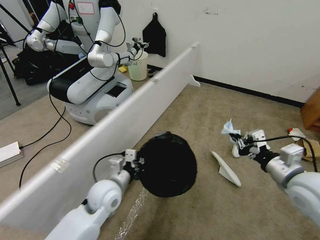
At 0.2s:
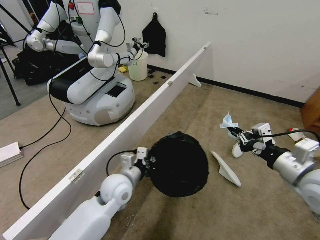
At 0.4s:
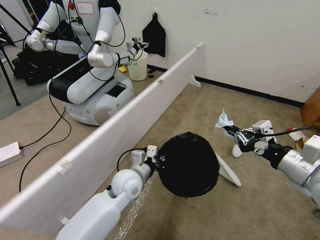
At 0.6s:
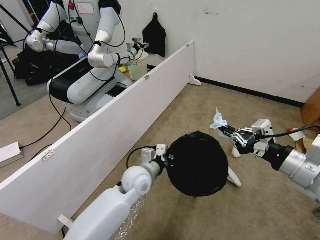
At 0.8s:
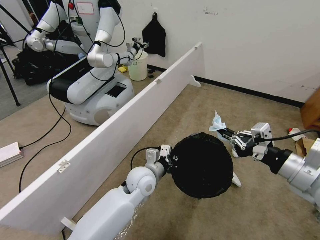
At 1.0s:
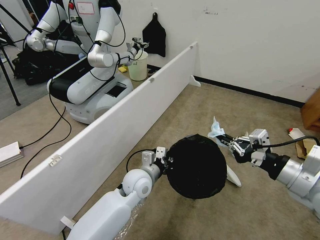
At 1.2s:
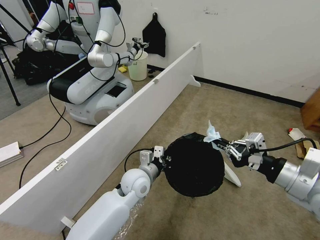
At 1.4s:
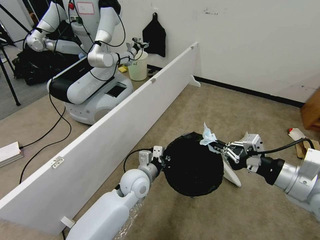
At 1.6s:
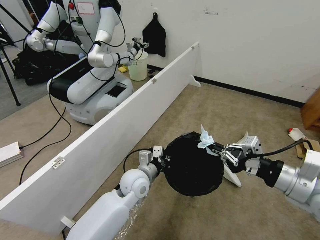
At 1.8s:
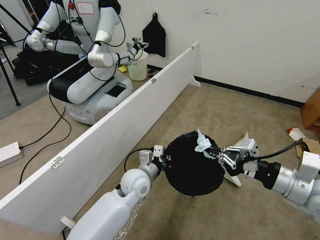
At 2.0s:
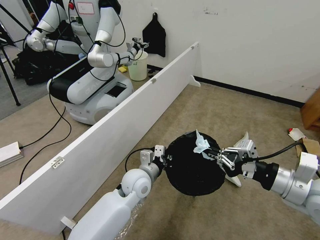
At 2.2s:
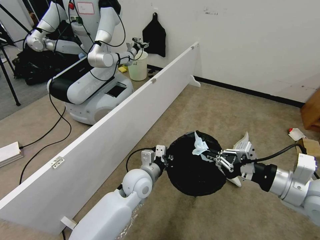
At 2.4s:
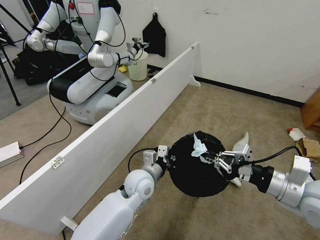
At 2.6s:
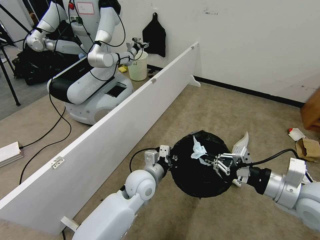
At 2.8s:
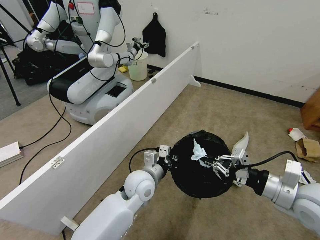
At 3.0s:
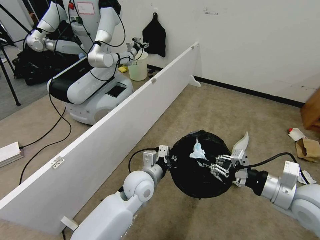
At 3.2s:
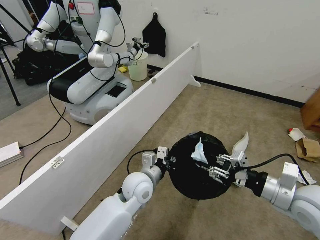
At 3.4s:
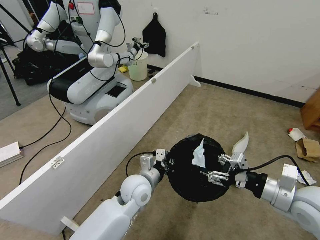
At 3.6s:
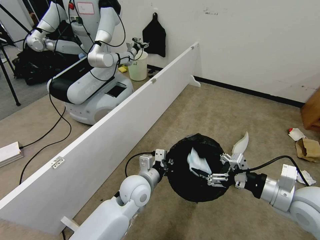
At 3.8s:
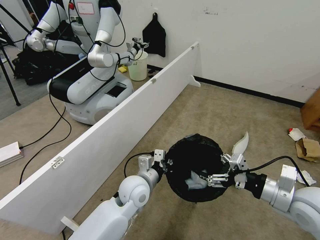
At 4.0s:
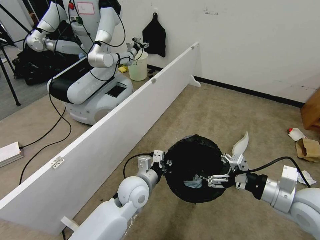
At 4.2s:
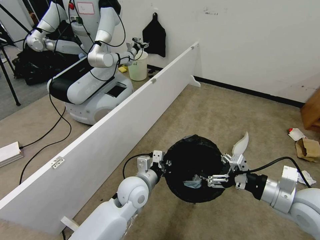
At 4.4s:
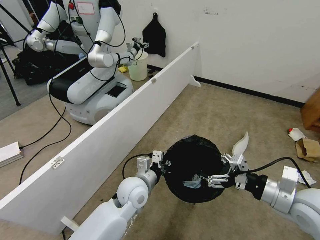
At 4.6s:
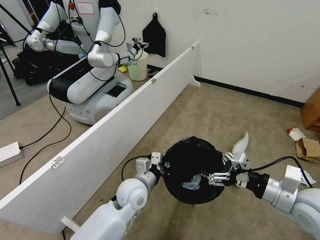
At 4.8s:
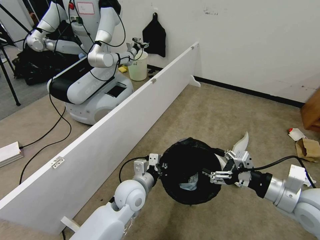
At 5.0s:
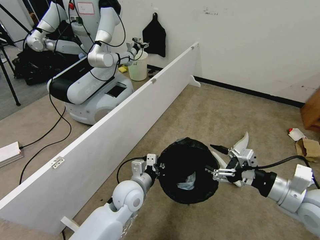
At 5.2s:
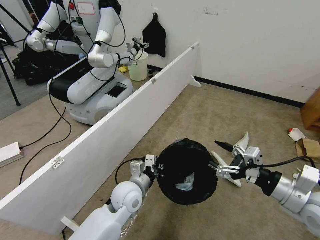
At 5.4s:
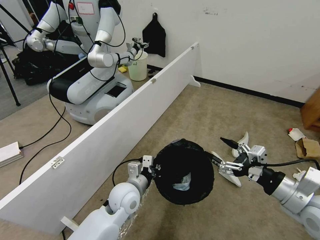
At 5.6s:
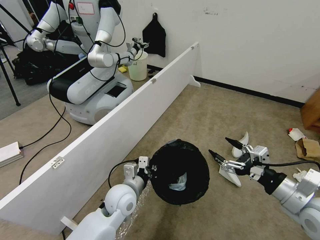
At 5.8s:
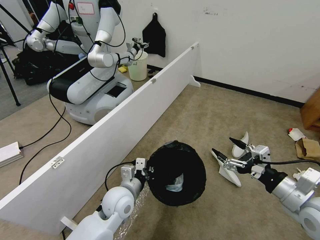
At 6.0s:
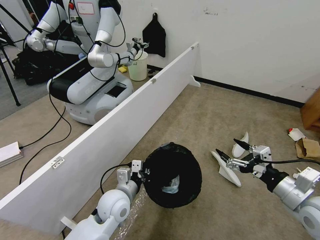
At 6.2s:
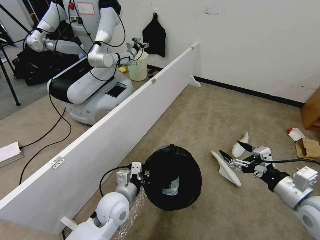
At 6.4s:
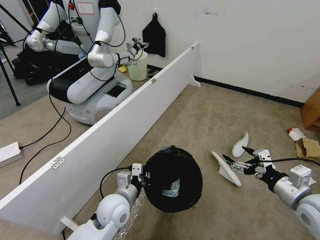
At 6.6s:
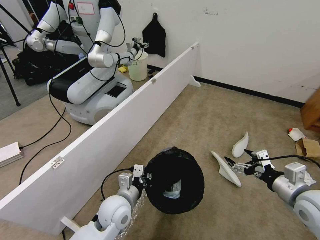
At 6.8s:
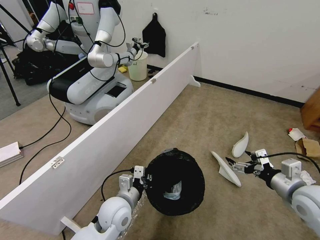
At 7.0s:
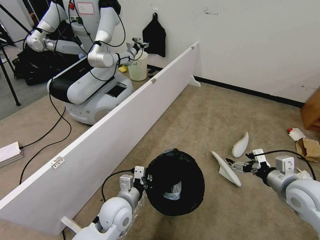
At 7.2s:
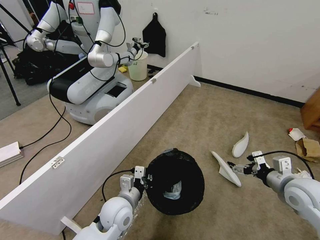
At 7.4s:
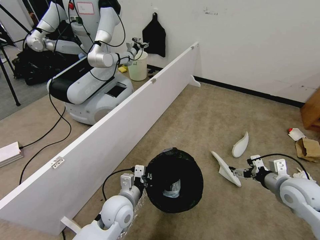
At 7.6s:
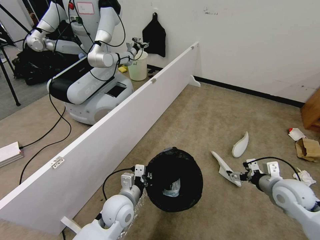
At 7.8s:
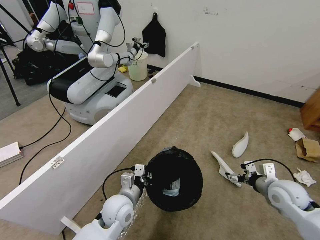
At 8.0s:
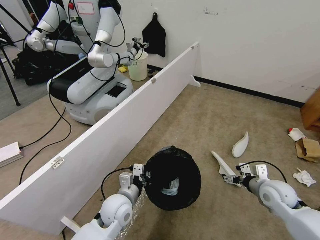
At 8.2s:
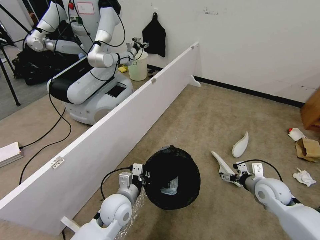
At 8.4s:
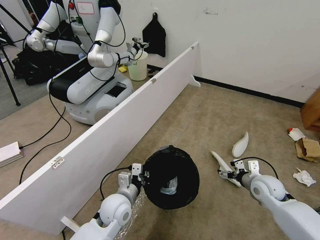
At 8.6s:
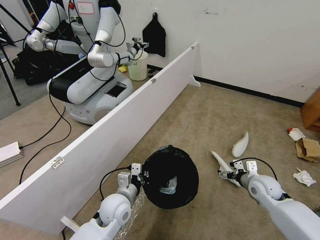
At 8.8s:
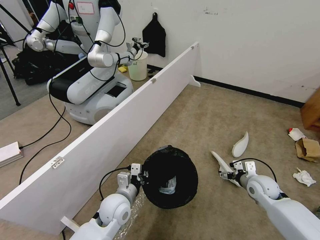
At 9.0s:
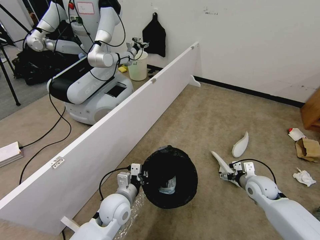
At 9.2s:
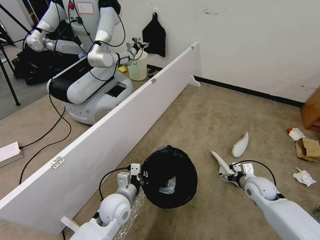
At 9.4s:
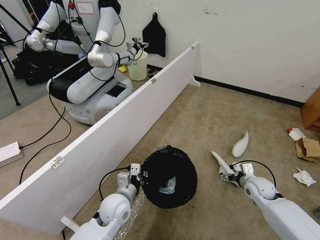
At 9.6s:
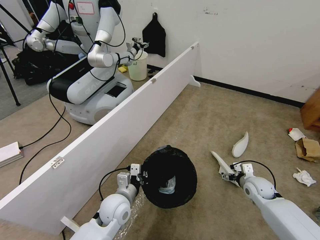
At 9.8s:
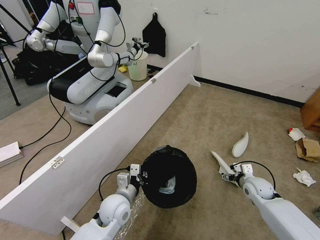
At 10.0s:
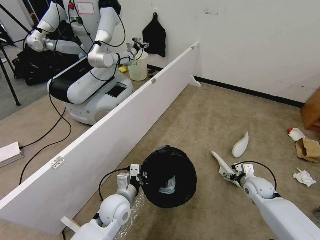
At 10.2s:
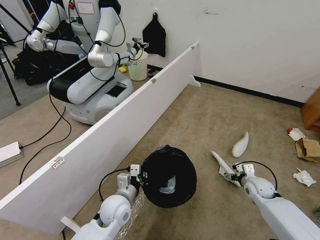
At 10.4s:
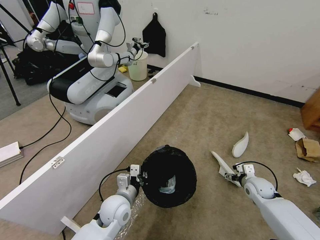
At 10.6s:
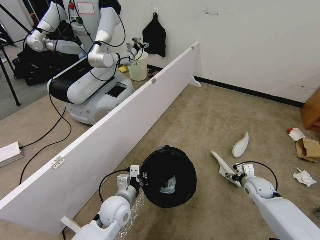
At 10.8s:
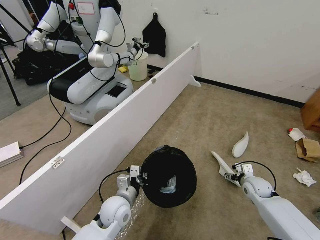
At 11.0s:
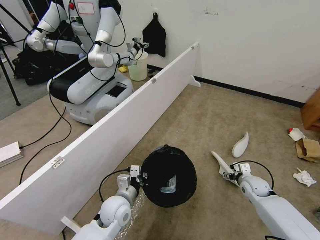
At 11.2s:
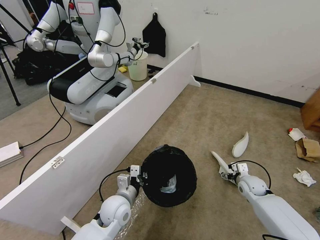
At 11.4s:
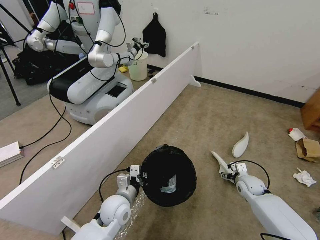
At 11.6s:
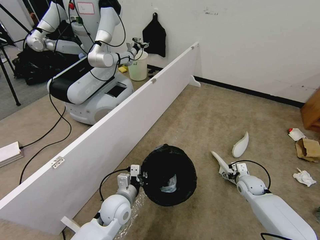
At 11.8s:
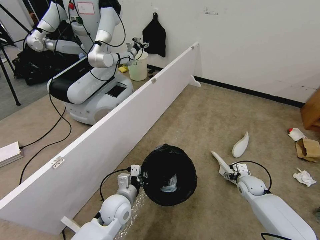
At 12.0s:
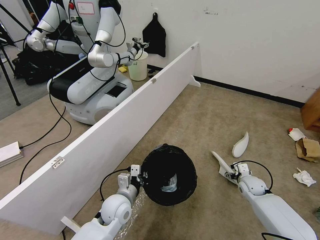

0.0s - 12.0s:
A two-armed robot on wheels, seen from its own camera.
Task of the whole recording: Pick up the trash bin, then pick up the garbage from the floor and place it into the trash bin.
0.0s - 1.6s: The right gripper changes place by approximately 5 cm; the left gripper heads to the right, covering roughly 10 cm.
1.6s - 3.0s: The grippers make only small movements.
3.0s - 4.4s: The right gripper opens its fingers.
4.4s - 6.0s: The left gripper is displaced to the left by some 5 cm.
6.0s - 7.6s: The right gripper is displaced forward and downward by roughly 10 cm.
7.6s - 9.0s: The right gripper moves downward and forward, approximately 10 cm.
9.0s - 10.4s: The right gripper moves some 5 cm.
10.4s - 12.0s: The grippers make only small movements.

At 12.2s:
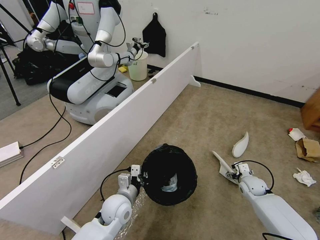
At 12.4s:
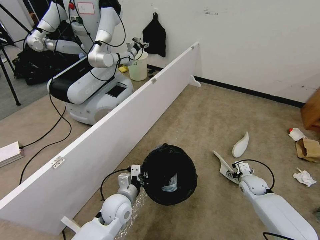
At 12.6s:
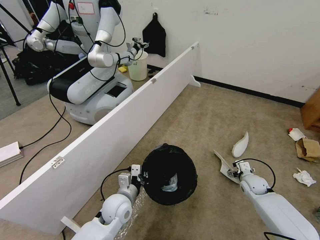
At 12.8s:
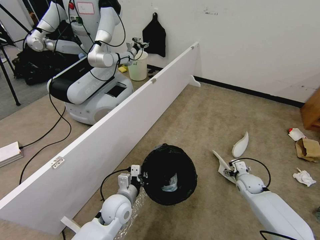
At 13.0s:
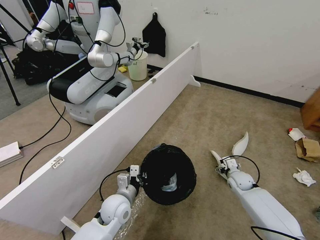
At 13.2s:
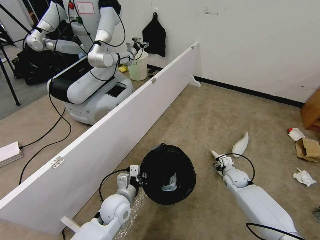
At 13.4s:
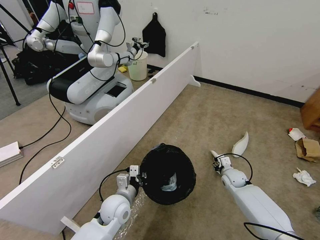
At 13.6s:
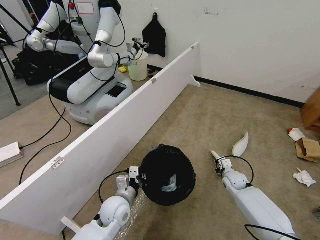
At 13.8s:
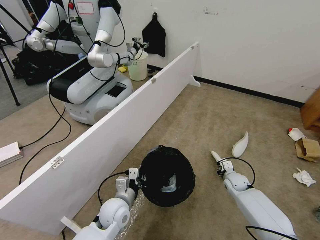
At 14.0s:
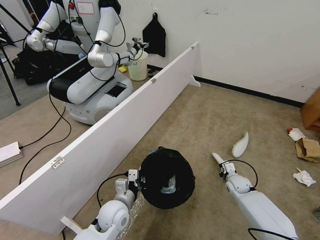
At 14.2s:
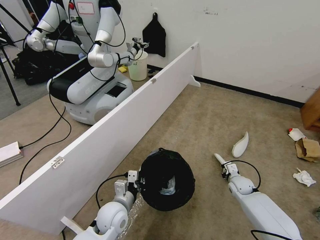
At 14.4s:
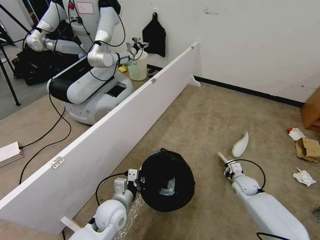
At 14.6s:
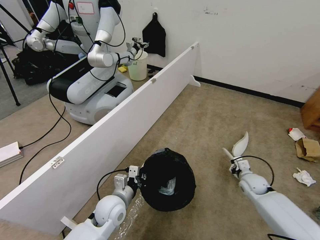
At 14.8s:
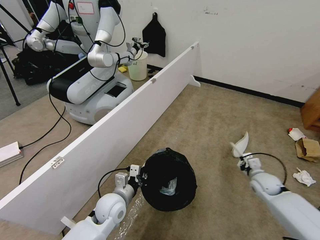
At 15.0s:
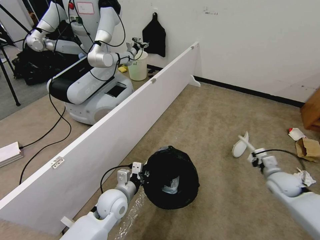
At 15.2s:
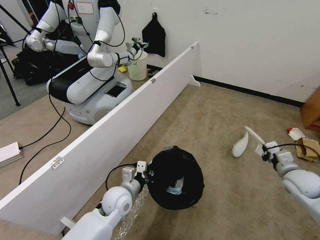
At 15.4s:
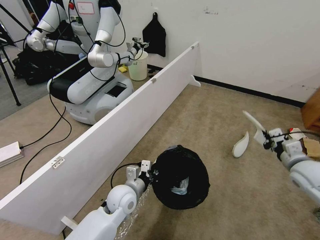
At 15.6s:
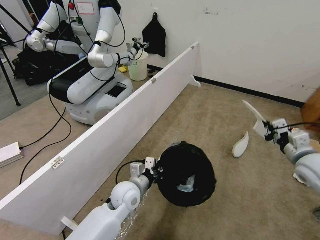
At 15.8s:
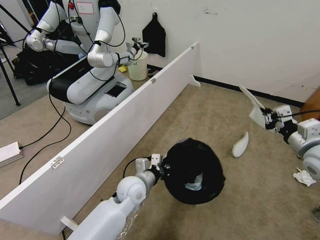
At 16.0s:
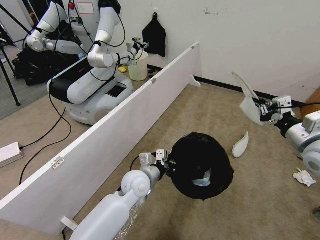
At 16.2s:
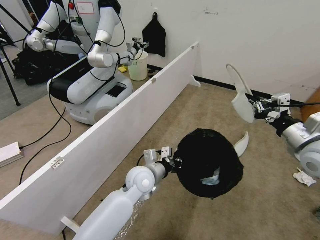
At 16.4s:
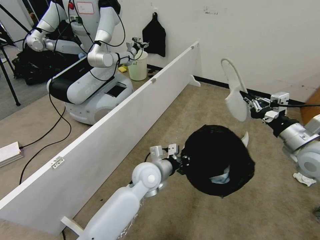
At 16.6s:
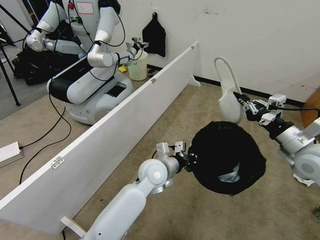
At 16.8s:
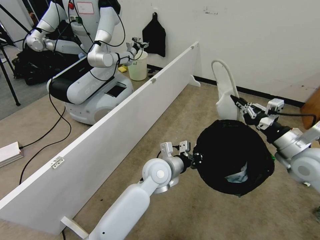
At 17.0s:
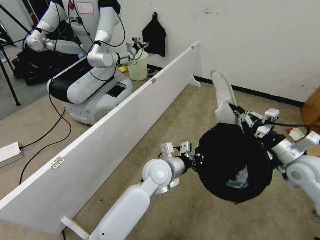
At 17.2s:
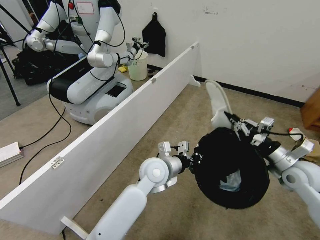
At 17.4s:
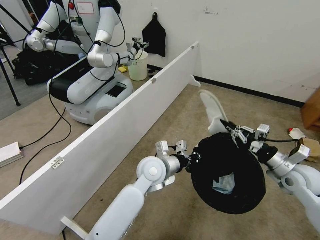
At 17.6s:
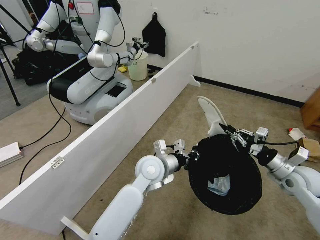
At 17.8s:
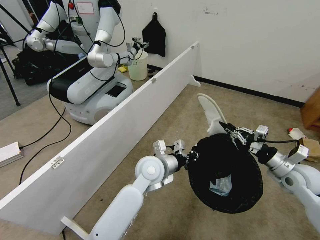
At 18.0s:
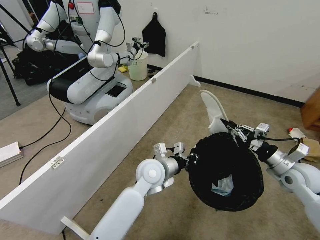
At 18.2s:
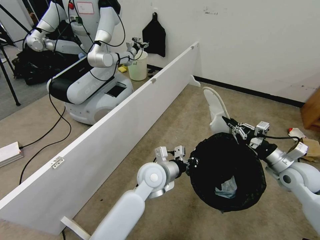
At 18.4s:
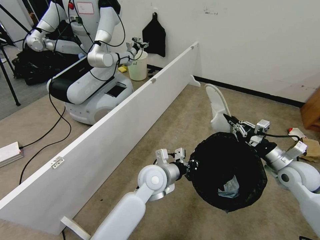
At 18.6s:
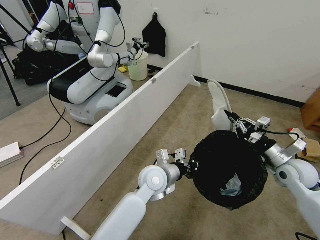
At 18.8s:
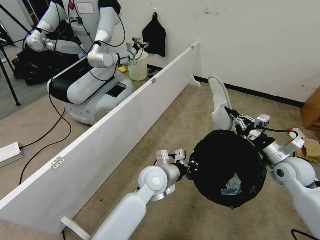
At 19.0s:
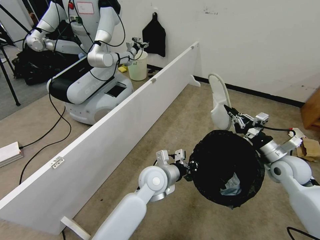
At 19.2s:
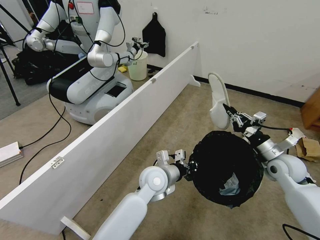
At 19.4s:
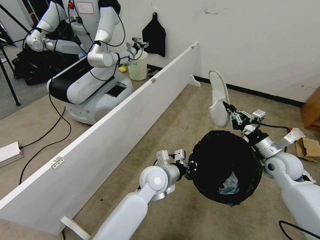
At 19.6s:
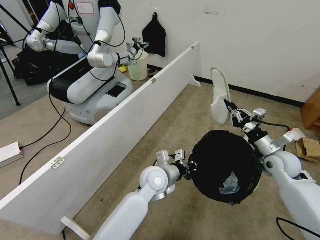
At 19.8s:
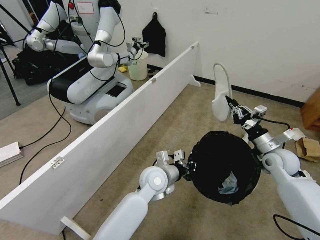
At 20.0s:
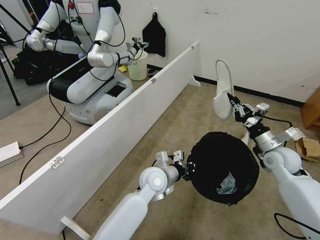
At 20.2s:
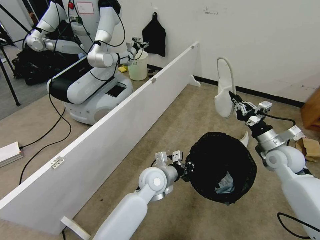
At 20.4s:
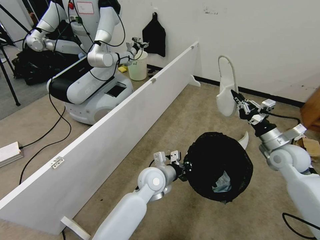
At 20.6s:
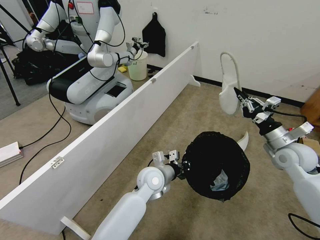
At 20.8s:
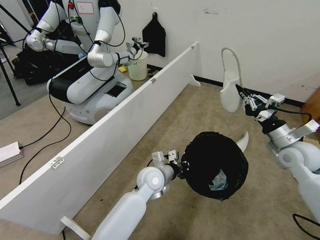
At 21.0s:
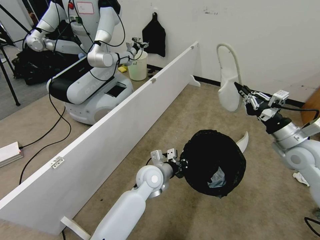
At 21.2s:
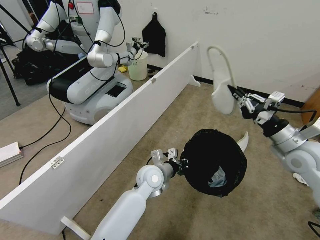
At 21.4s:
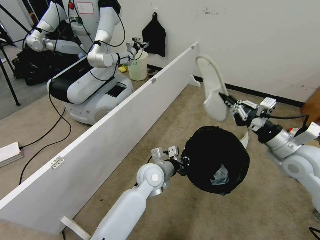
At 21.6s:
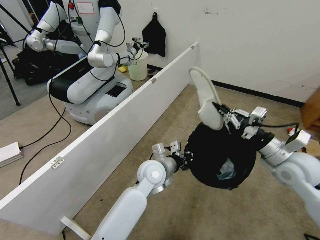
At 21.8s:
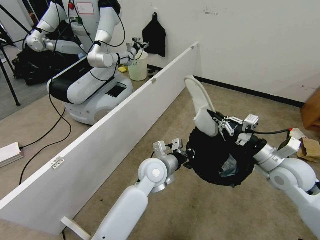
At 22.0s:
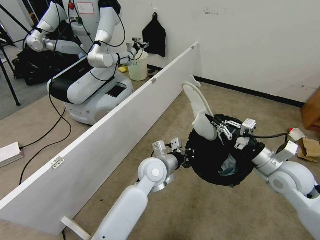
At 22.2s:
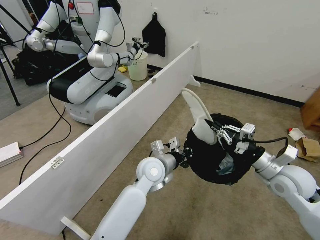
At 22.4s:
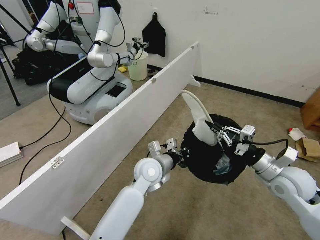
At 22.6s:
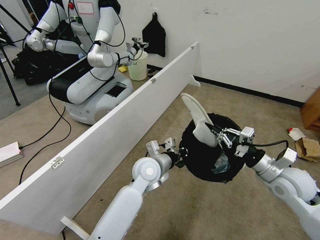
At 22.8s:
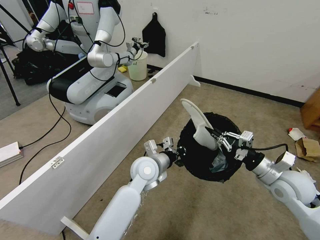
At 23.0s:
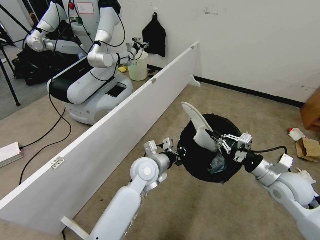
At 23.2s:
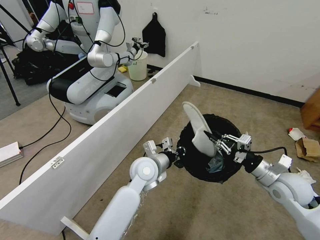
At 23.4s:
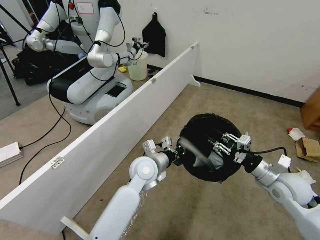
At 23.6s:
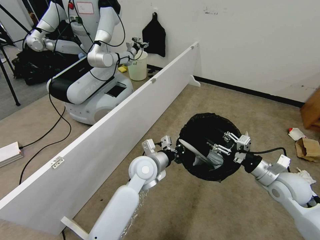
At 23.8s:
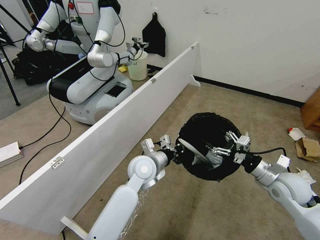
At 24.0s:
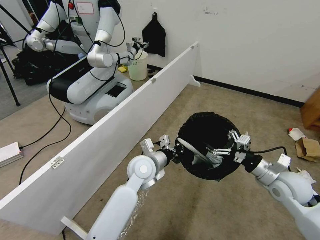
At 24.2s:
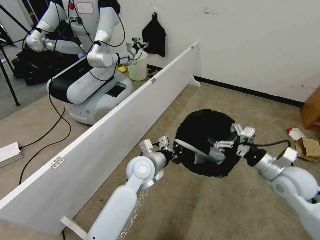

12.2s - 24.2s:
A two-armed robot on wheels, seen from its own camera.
Task of the whole recording: Pick up the trash bin, then pick up the garbage from the floor and place it into the trash bin.
12.2s - 13.8s: The right gripper is displaced to the left by about 5 cm, and closes its fingers.
13.8s - 15.2s: The right gripper shifts roughly 25 cm upward, to the right and backward.
15.2s - 16.6s: The right gripper shifts approximately 15 cm upward and to the left, while the left gripper shifts some 15 cm to the right, upward and forward.
16.6s - 18.2s: The right gripper is displaced downward by roughly 10 cm.
18.2s - 19.8s: The right gripper moves forward, roughly 5 cm.
19.8s - 21.2s: The right gripper goes approximately 10 cm upward.
21.2s - 22.6s: The right gripper heads downward, covering about 5 cm.
22.6s - 24.2s: The right gripper opens its fingers.
